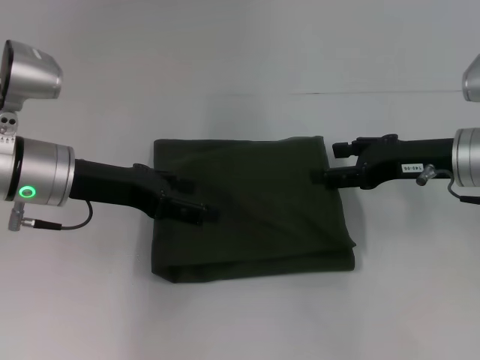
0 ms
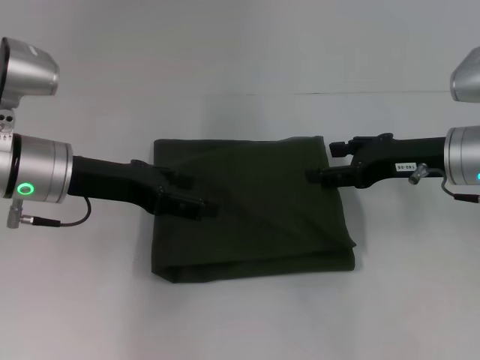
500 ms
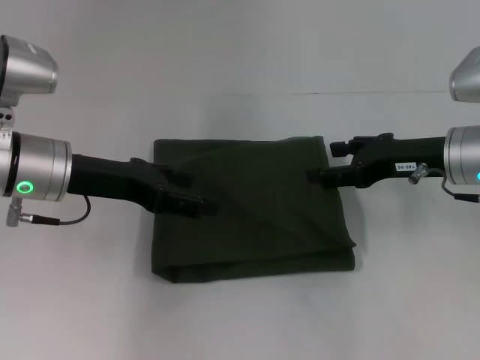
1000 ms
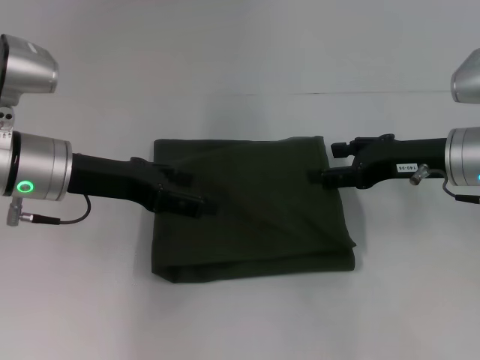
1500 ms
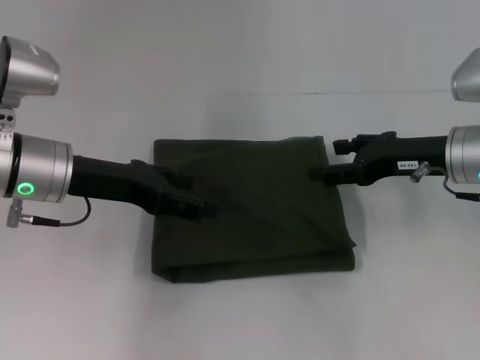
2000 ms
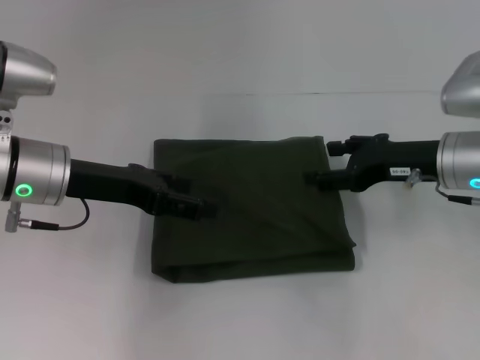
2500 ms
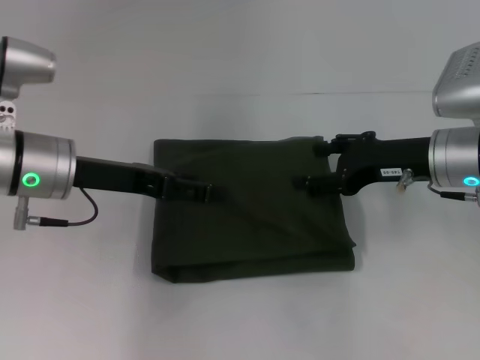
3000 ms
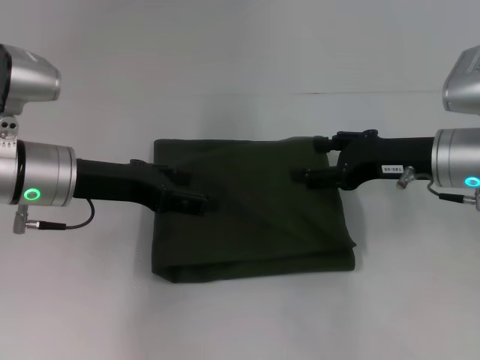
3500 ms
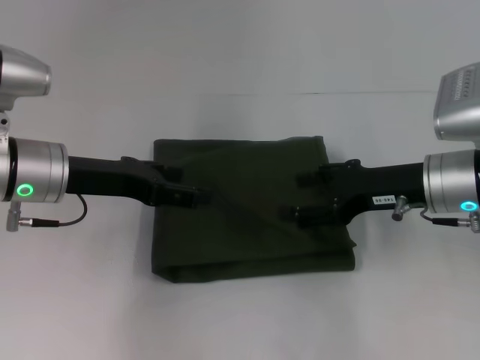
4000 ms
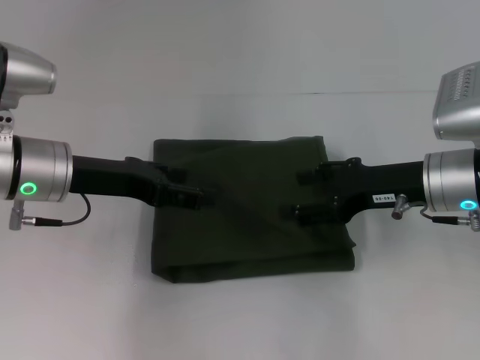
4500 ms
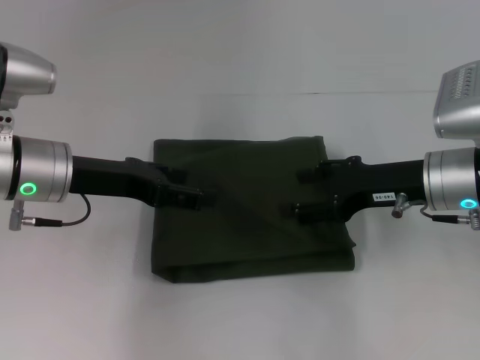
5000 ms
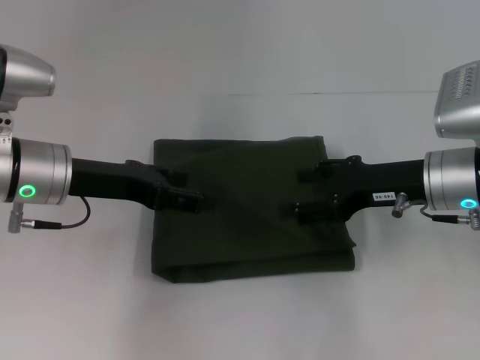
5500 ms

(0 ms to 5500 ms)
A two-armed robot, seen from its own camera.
0 ms - 2000 ms: Both grippers stay put.
2000 ms - 5500 ms: The grippers make only small movements.

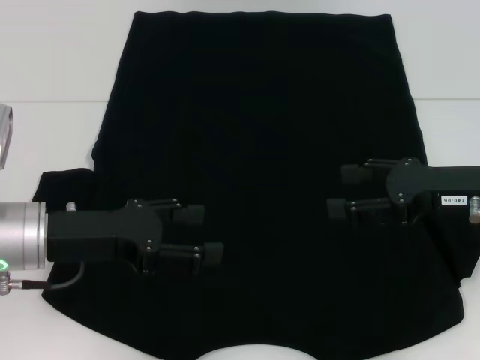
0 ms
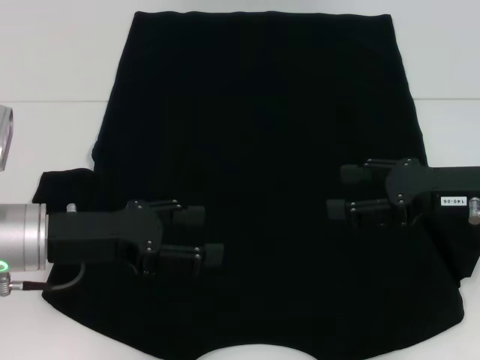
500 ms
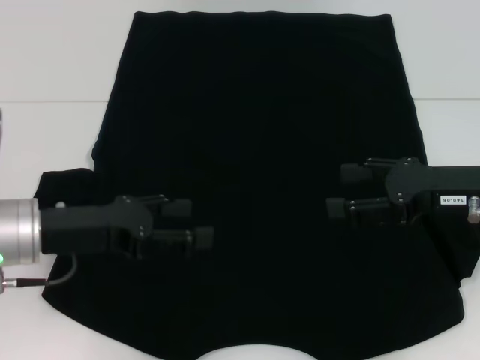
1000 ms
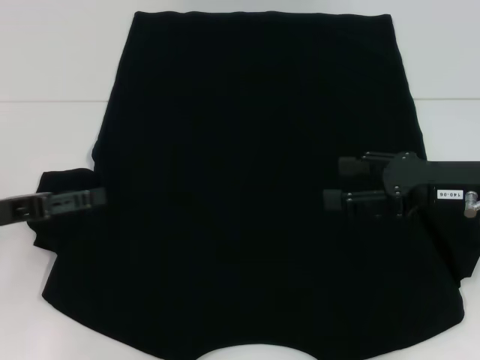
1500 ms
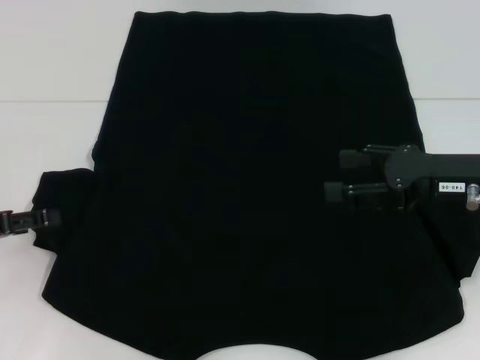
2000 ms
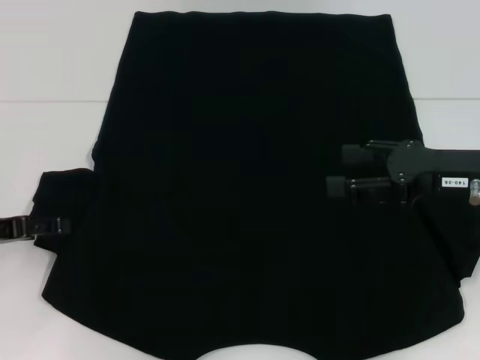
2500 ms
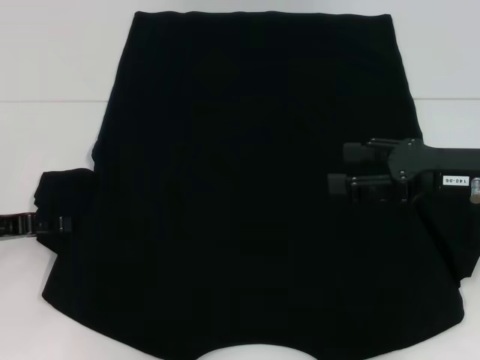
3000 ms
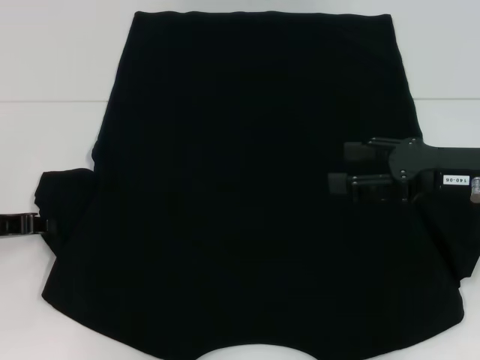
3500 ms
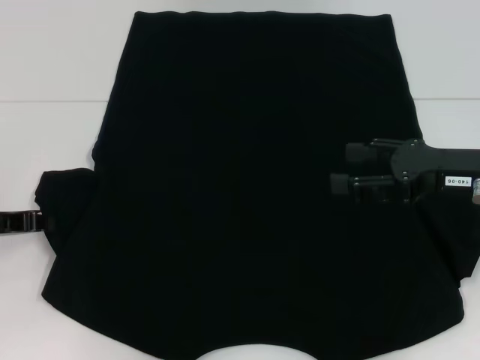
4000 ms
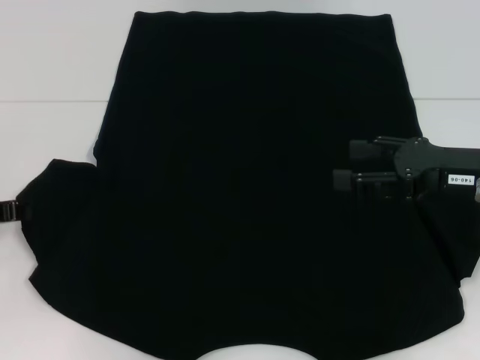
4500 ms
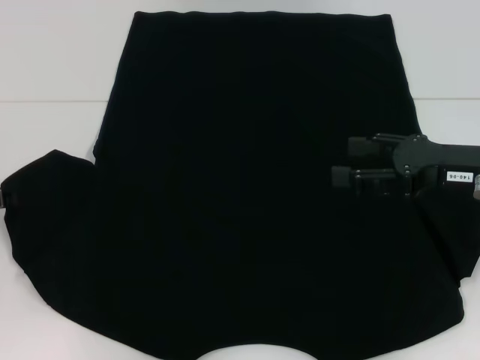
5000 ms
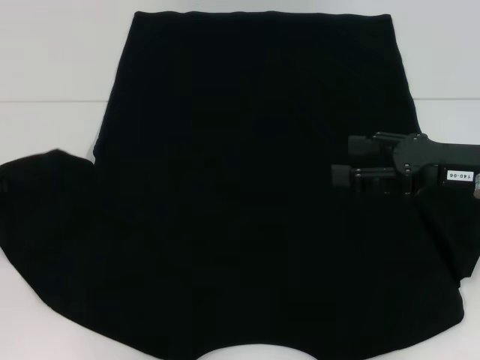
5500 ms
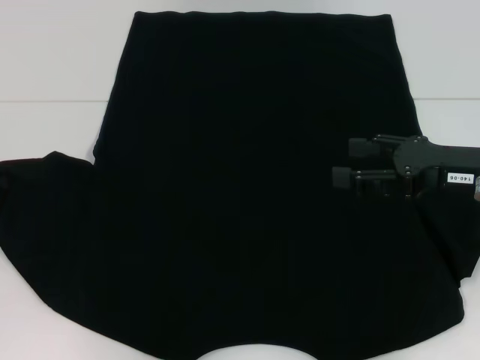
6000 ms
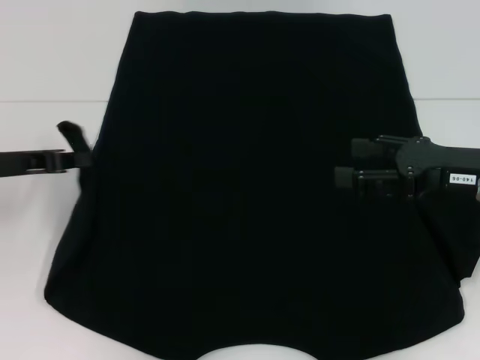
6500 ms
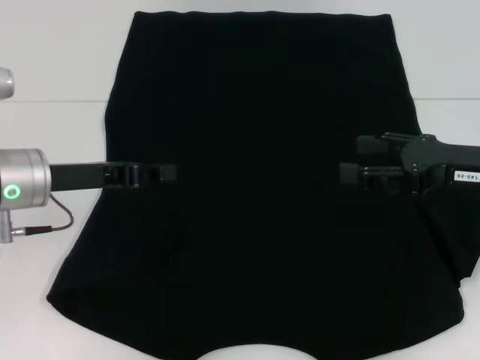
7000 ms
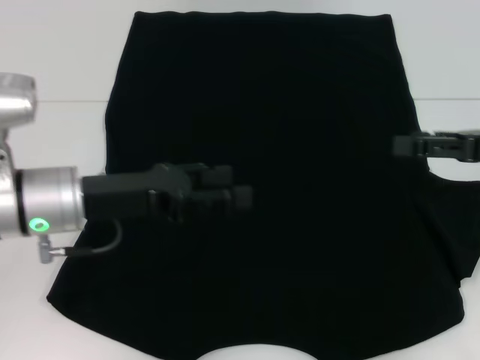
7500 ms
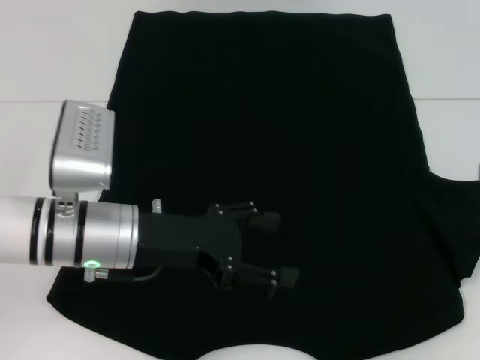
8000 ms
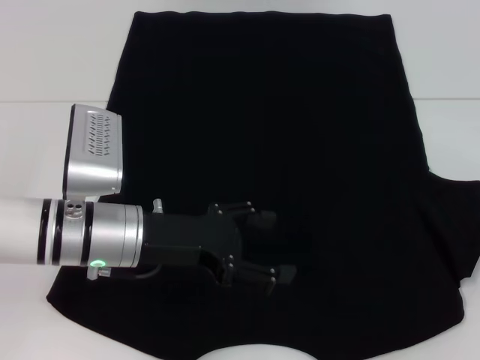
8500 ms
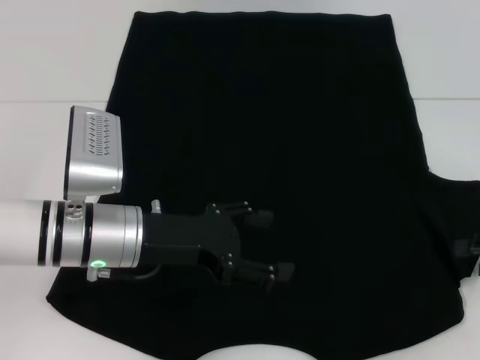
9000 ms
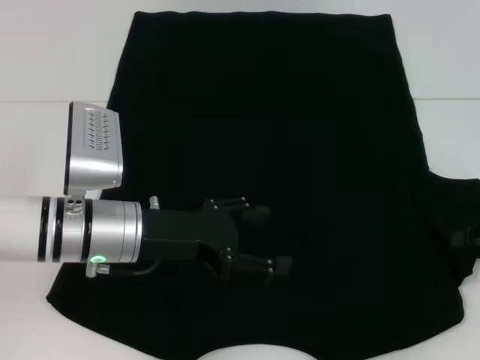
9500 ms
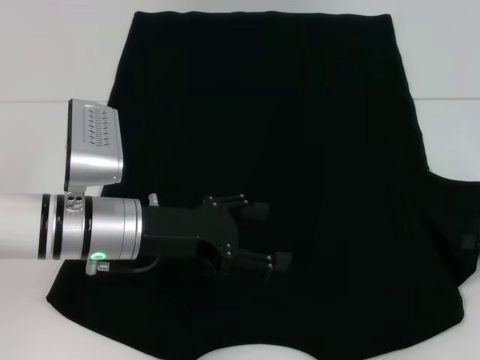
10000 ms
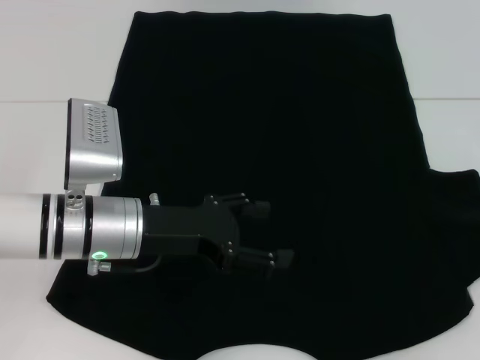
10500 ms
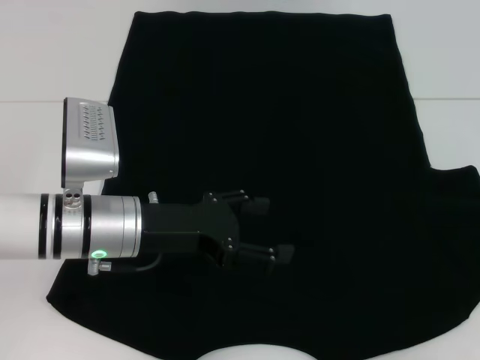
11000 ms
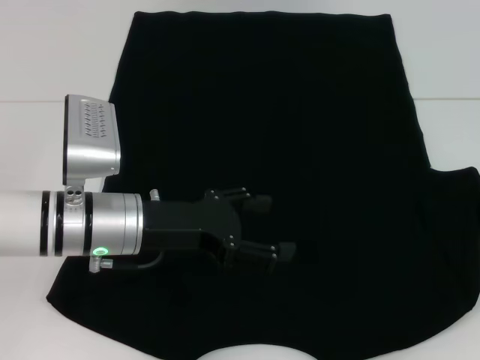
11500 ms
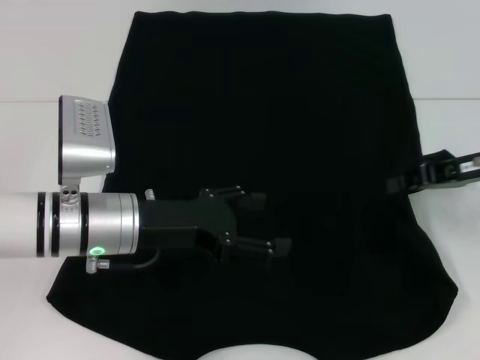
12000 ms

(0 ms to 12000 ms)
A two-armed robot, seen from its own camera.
Step, 0 ms - 7000 ms: Fold the bottom left sleeve with your left hand.
0 ms - 2000 ms: The left gripper is displaced to the left by some 10 cm.
4000 ms - 6000 ms: The grippers make only small movements.
6000 ms - 8000 ms: The left gripper moves to the right, roughly 20 cm, and opens; the right gripper is displaced to the right by about 15 cm.
10000 ms - 12000 ms: The right gripper moves to the left, forward and upward, some 10 cm.

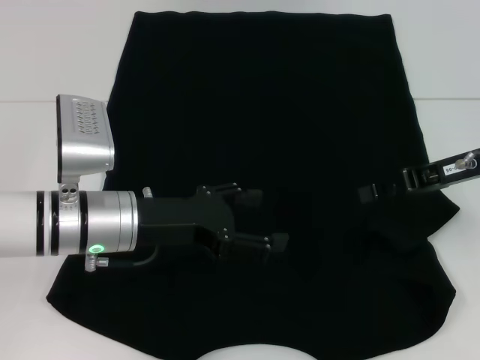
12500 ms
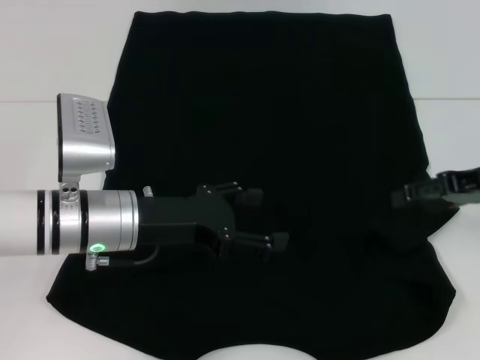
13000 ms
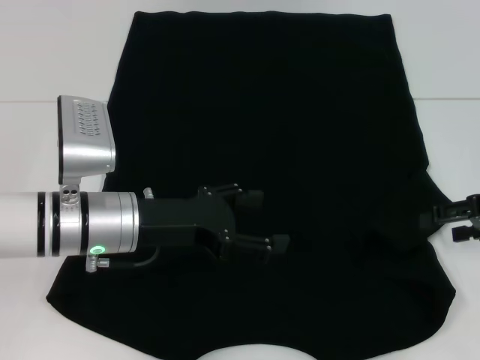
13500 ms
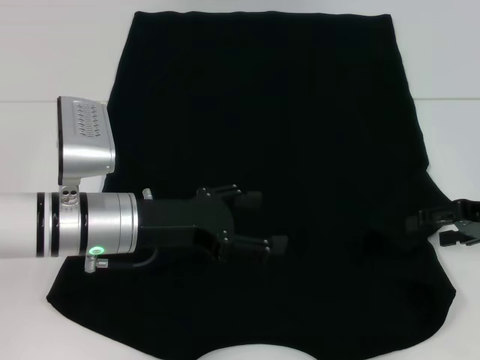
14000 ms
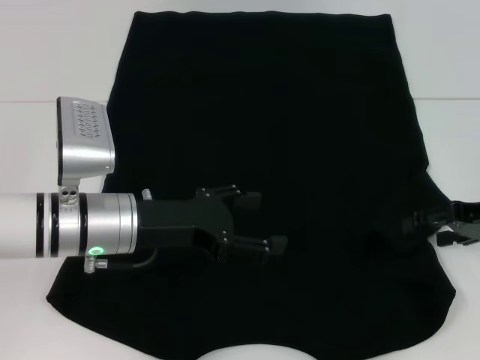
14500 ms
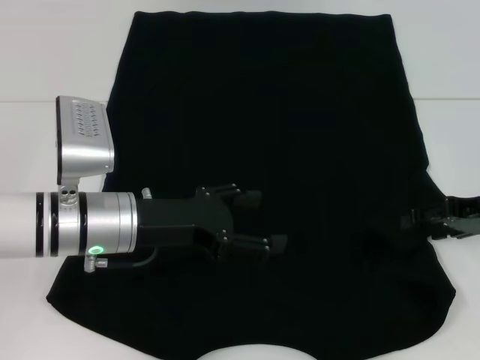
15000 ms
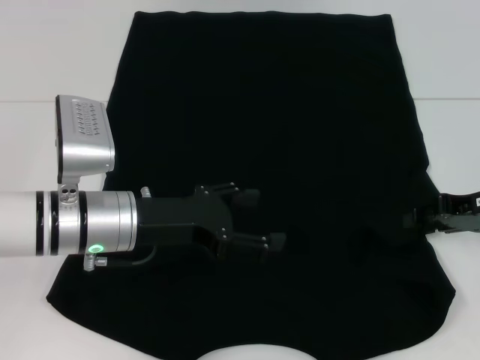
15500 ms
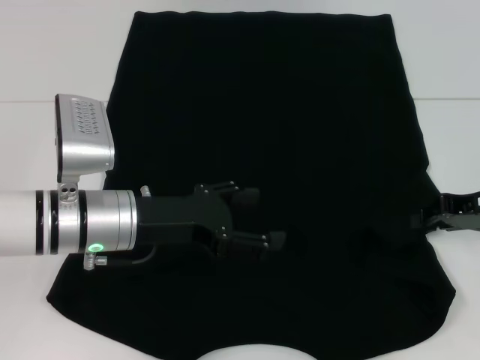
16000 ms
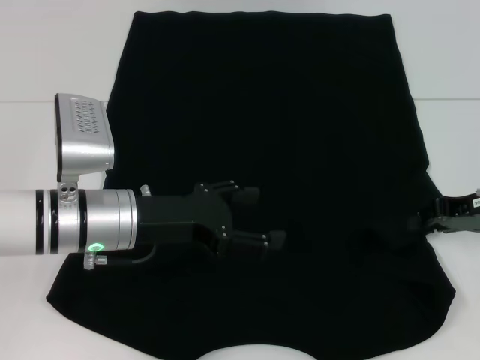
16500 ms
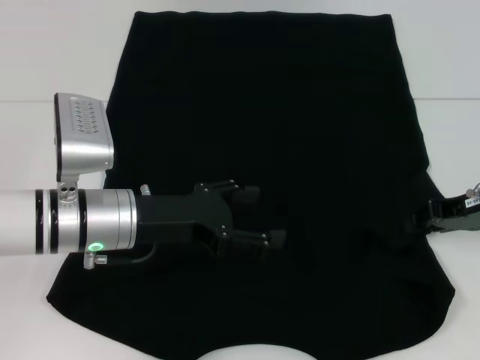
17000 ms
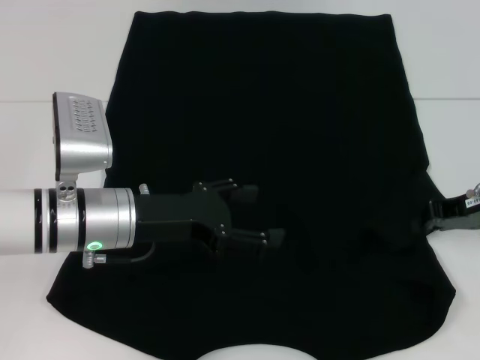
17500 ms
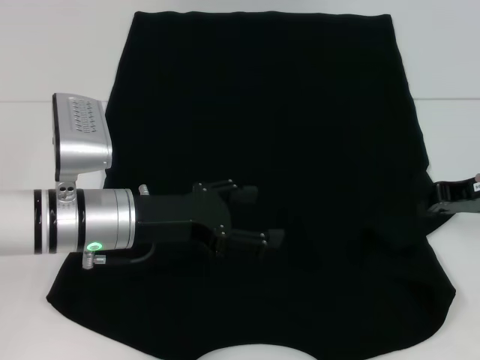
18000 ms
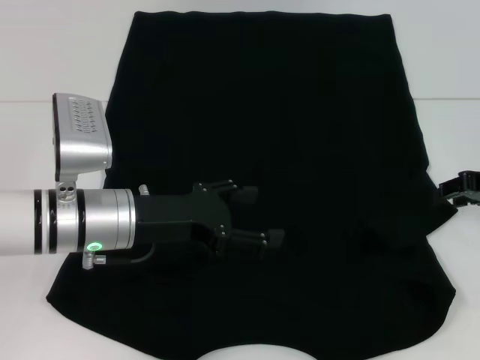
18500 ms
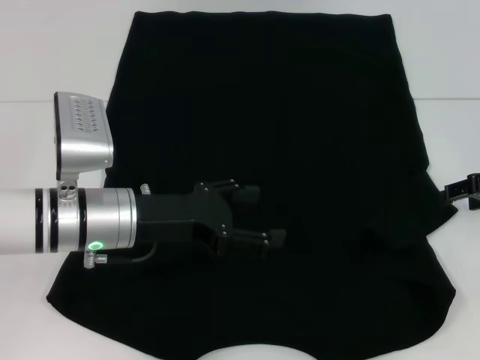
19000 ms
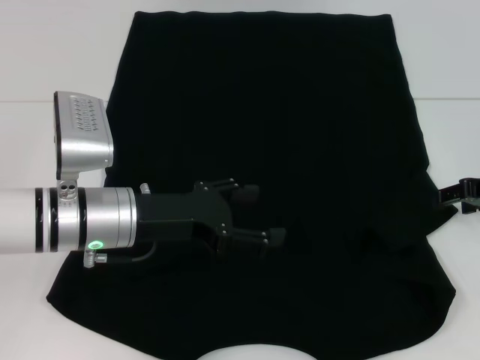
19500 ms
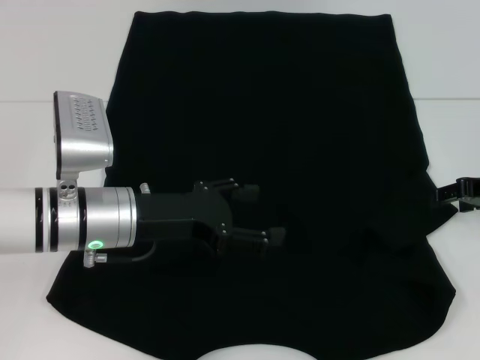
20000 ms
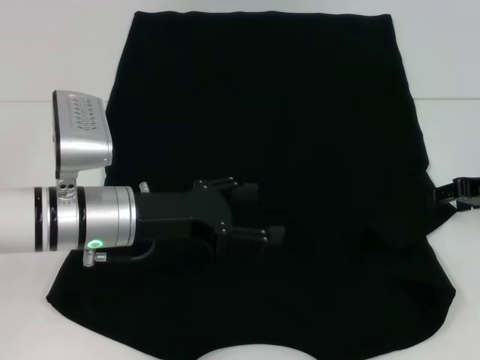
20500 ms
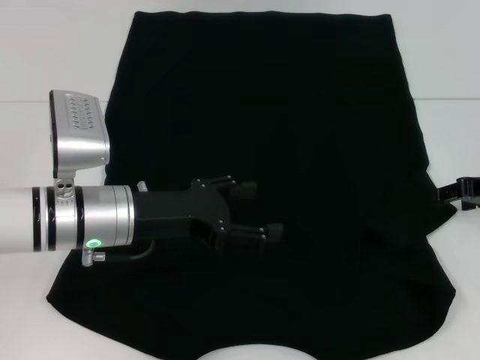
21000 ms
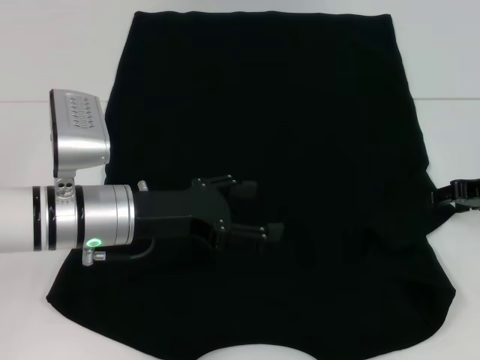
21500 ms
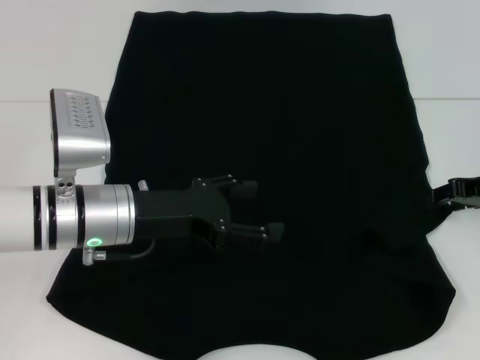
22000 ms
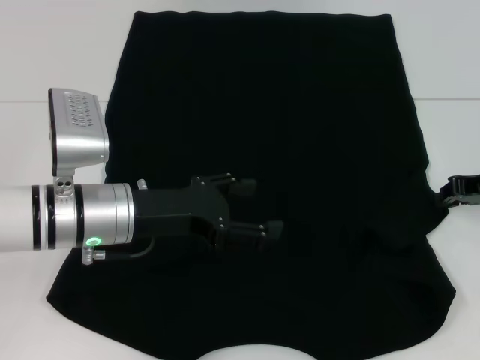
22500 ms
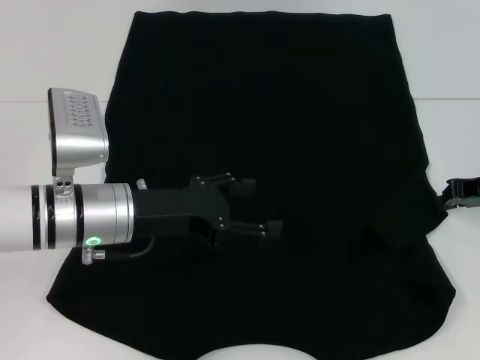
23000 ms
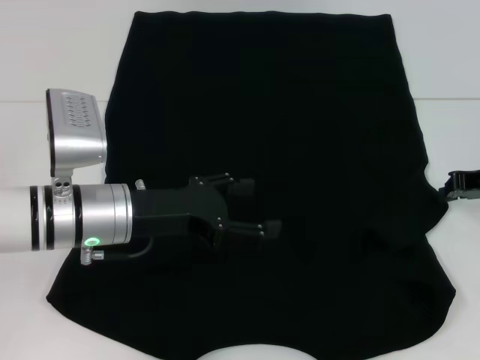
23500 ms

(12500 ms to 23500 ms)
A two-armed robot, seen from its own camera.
12500 ms - 14500 ms: The right gripper heads to the right, covering roughly 5 cm, and opens its fingers.
14500 ms - 16000 ms: The right gripper closes.
16000 ms - 18000 ms: The grippers stay close to where they were, moving slightly.
20000 ms - 21500 ms: Both grippers stay put.
21500 ms - 23500 ms: The right gripper closes.
